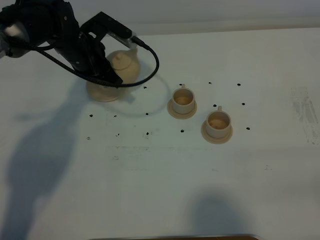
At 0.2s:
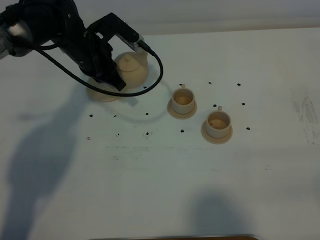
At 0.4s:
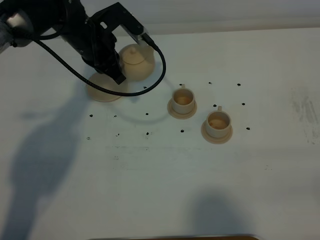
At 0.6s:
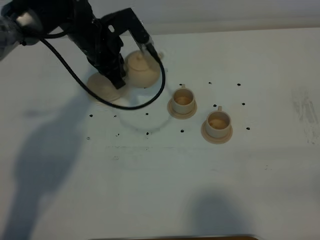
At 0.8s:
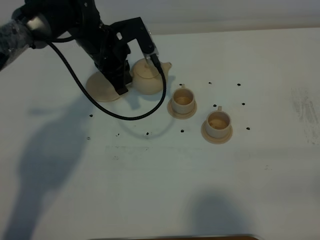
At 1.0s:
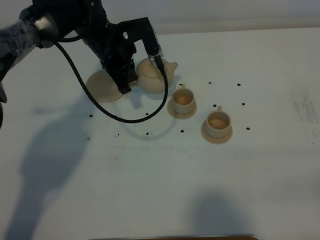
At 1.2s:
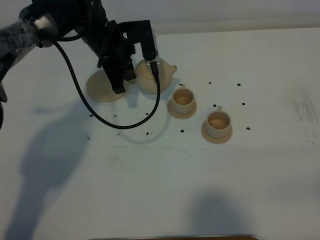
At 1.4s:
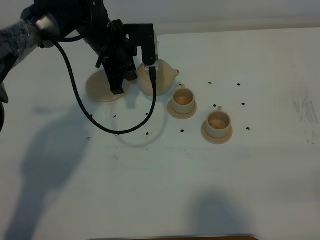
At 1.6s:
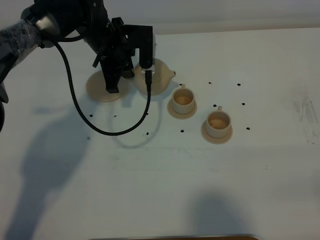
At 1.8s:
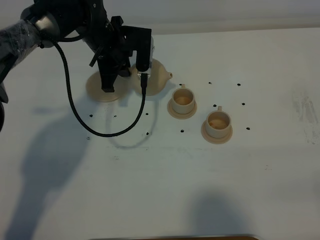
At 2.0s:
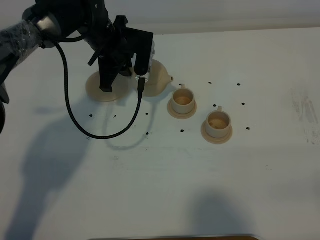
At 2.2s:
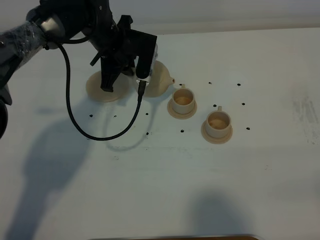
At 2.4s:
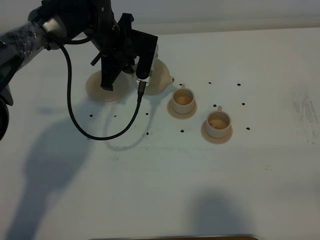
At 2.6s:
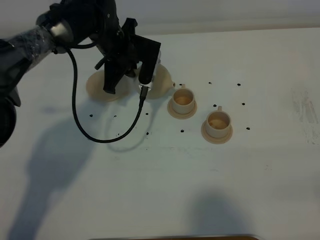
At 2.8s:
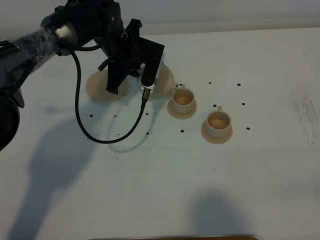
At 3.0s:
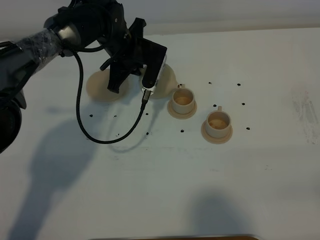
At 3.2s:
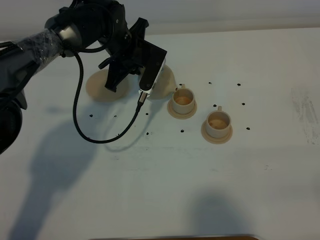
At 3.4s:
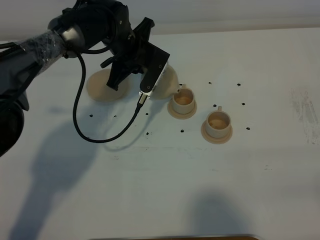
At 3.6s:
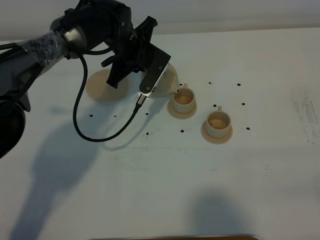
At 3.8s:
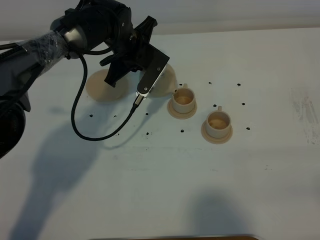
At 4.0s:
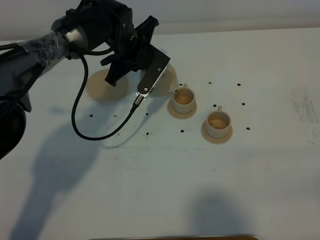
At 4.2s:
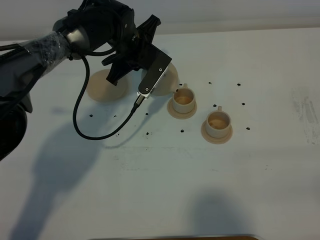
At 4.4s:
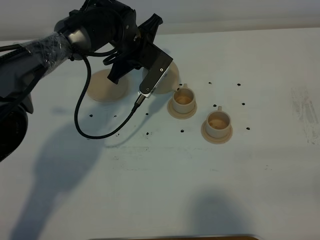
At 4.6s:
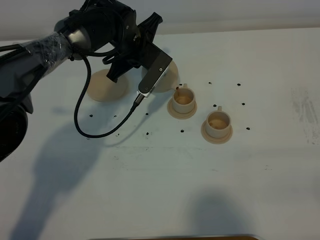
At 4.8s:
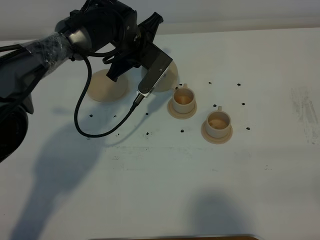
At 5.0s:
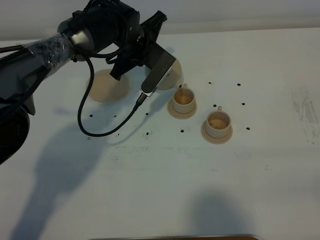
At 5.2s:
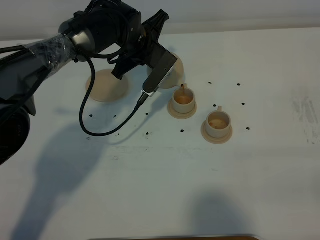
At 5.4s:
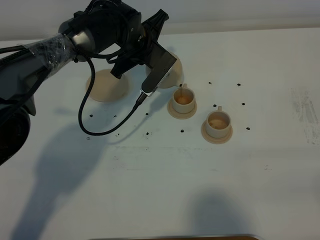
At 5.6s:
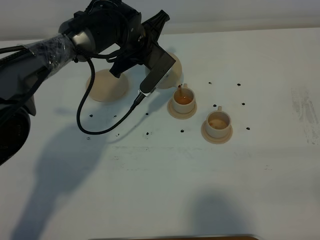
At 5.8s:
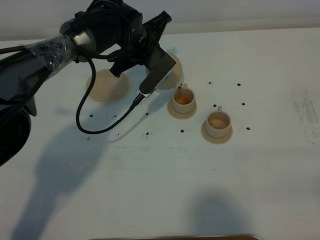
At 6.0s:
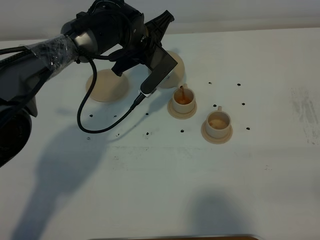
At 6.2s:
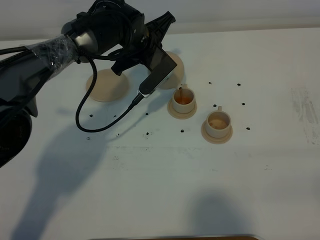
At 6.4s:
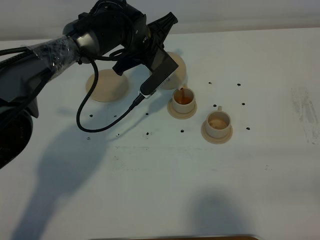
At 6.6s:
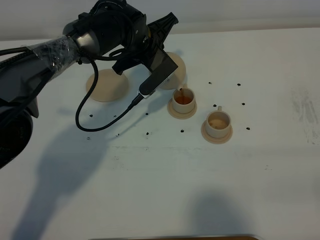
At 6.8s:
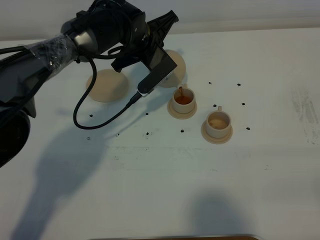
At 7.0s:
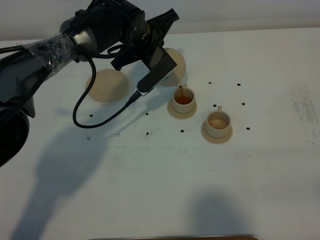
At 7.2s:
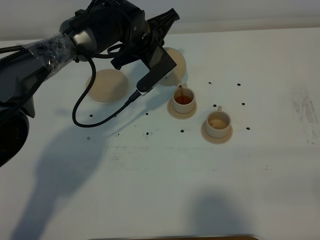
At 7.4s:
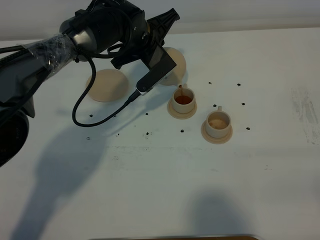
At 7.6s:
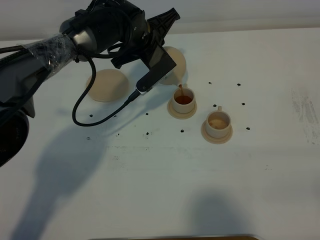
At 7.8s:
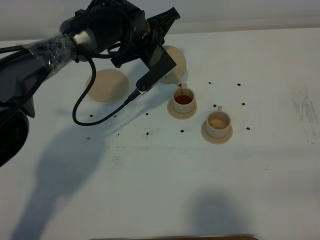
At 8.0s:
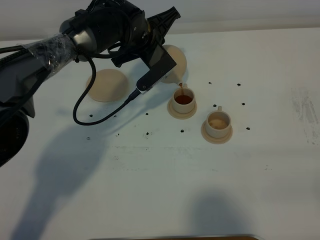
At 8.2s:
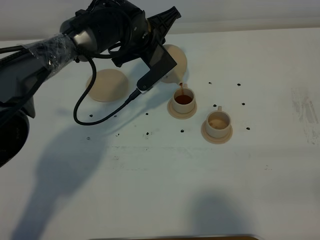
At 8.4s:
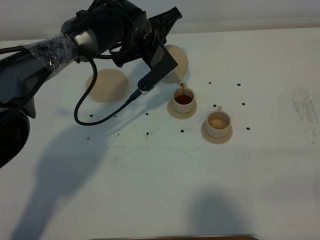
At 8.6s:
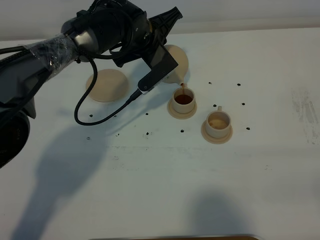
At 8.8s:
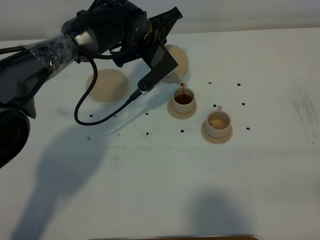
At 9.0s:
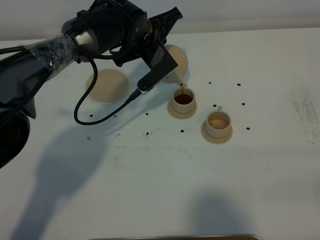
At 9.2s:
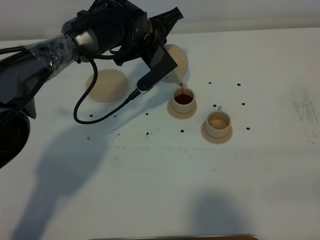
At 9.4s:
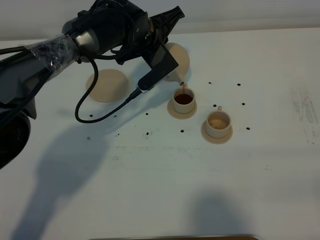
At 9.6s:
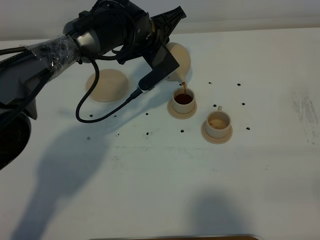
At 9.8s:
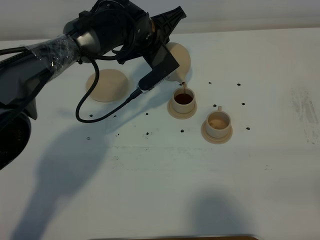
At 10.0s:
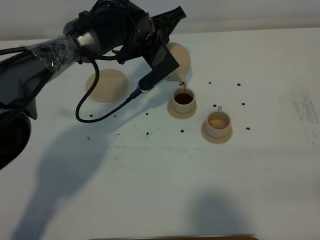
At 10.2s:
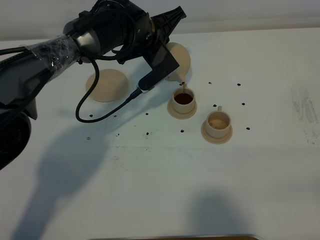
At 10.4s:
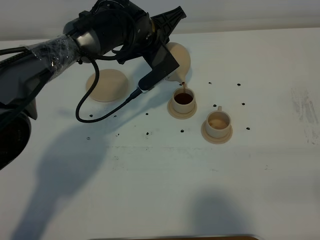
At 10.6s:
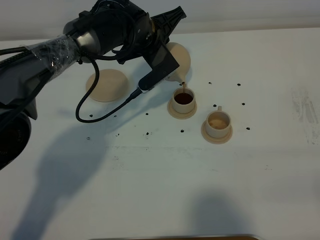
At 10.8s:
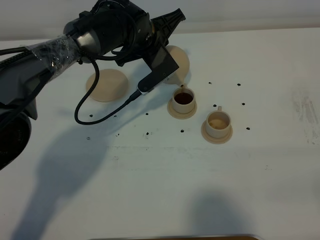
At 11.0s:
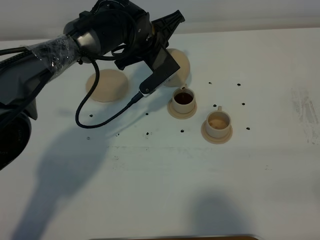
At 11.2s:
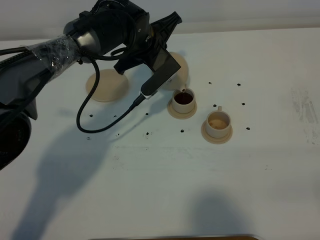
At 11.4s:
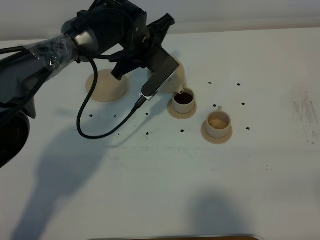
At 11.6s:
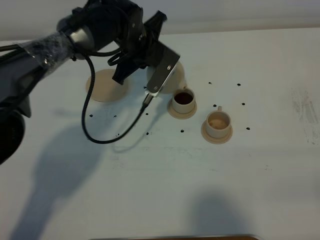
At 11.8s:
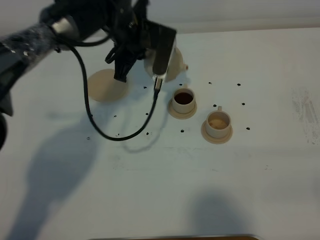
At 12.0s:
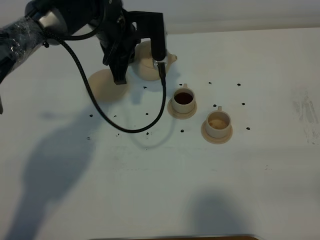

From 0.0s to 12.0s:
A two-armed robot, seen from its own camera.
Task of the whole recording: grasp the brown teapot and pour the tea into the two brown teacups one by one, put the brown teapot back in its original place.
From 0.0s to 1.6s: The left gripper changes place by some 5 cm.
From 3.0s to 4.4s: The grippers stay close to where they were, moving slightly.
From 4.4s to 7.6s: The grippers make only small movements.
From 7.6s to 10.4s: The two grippers keep their place.
From 10.4s to 12.0s: The left gripper heads to the left, covering approximately 5 cm.

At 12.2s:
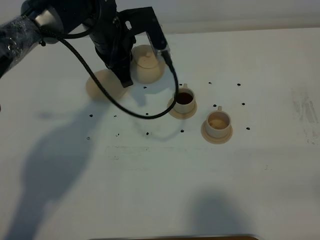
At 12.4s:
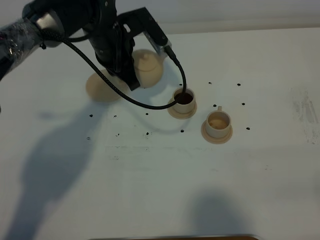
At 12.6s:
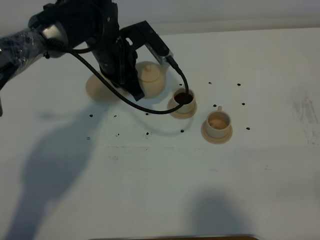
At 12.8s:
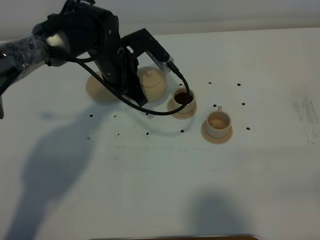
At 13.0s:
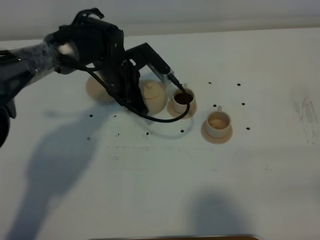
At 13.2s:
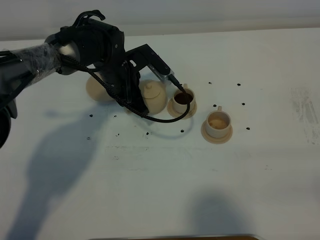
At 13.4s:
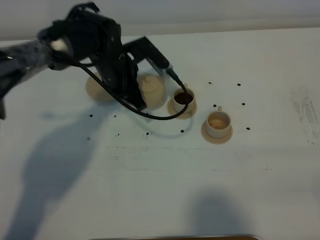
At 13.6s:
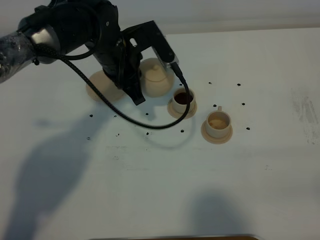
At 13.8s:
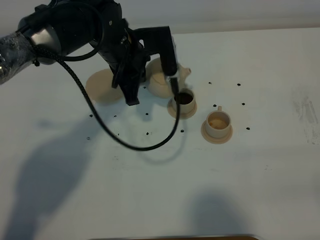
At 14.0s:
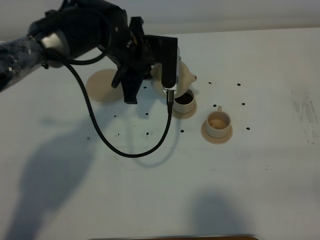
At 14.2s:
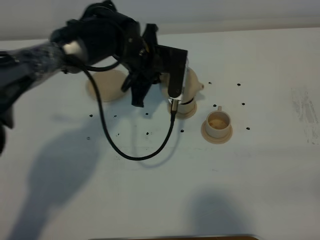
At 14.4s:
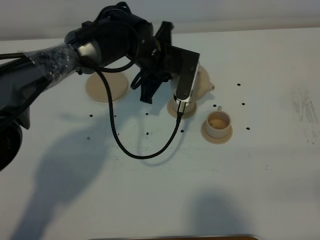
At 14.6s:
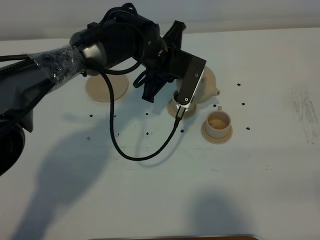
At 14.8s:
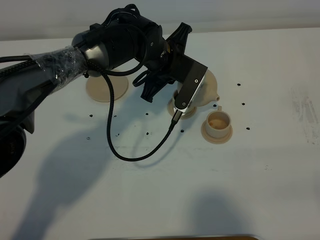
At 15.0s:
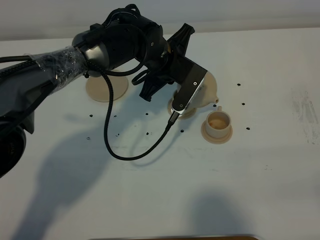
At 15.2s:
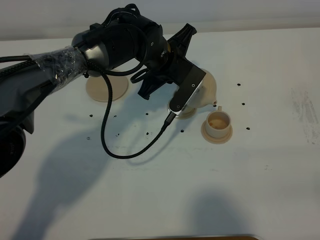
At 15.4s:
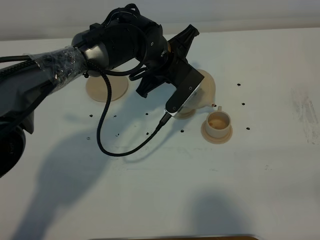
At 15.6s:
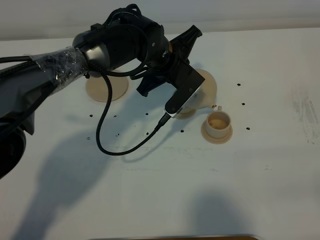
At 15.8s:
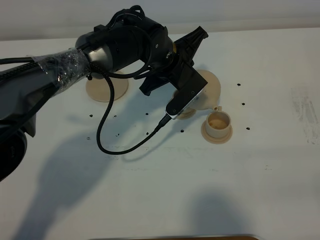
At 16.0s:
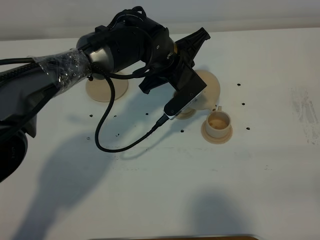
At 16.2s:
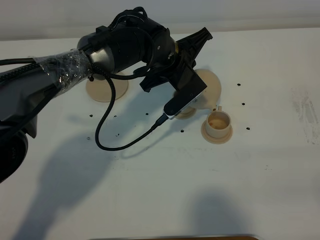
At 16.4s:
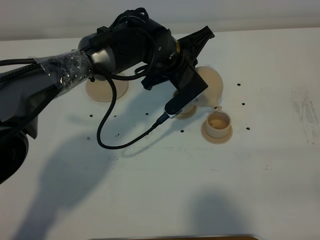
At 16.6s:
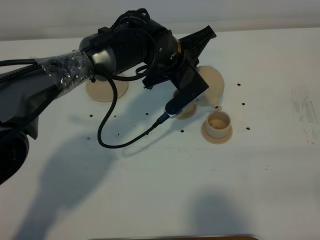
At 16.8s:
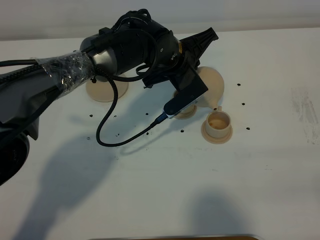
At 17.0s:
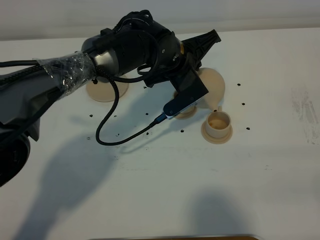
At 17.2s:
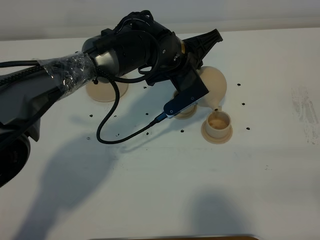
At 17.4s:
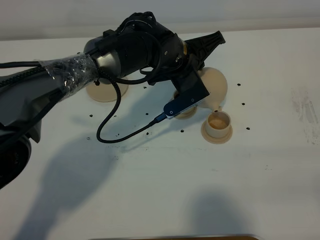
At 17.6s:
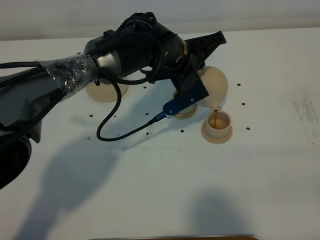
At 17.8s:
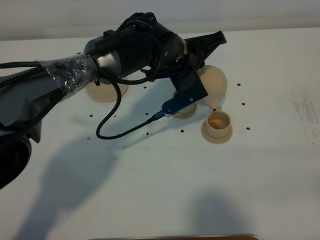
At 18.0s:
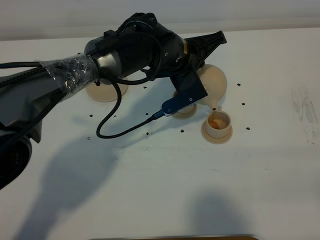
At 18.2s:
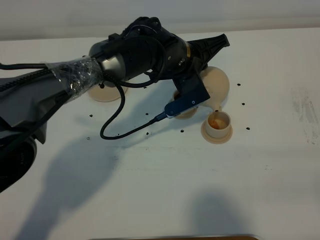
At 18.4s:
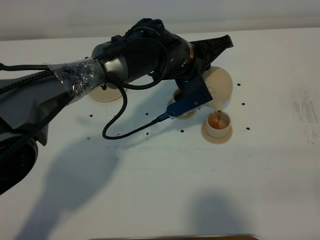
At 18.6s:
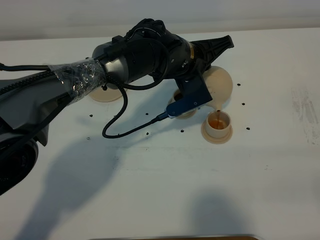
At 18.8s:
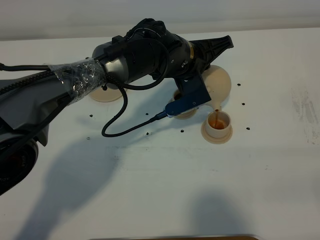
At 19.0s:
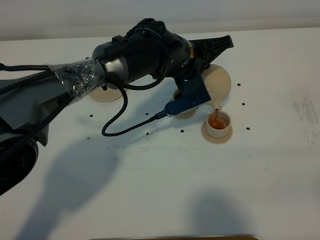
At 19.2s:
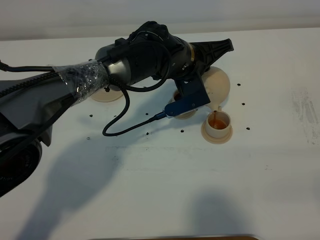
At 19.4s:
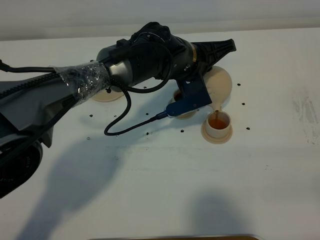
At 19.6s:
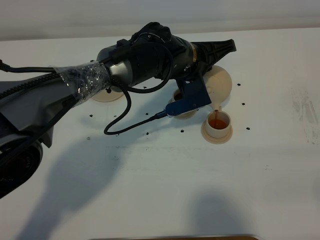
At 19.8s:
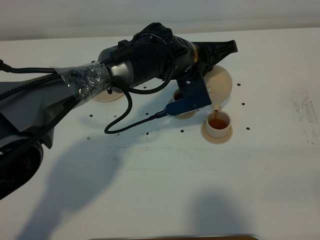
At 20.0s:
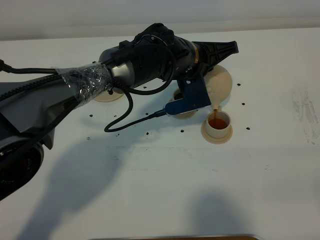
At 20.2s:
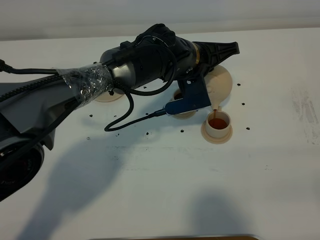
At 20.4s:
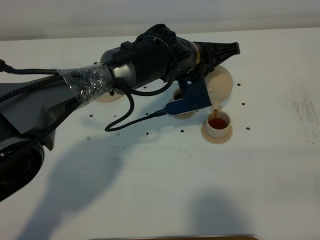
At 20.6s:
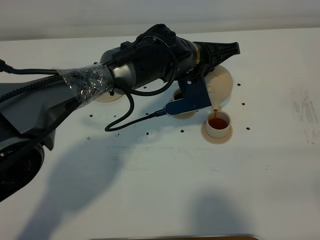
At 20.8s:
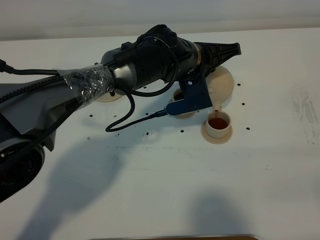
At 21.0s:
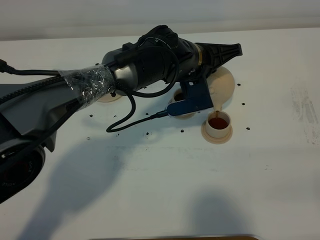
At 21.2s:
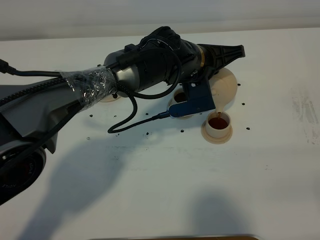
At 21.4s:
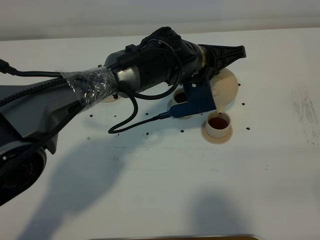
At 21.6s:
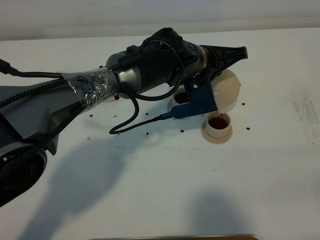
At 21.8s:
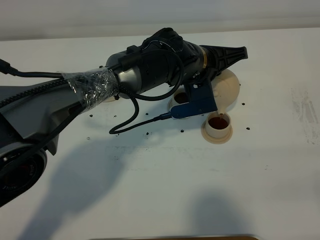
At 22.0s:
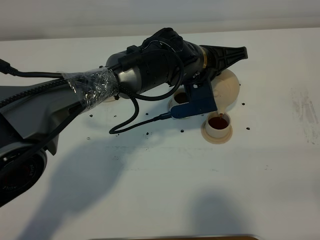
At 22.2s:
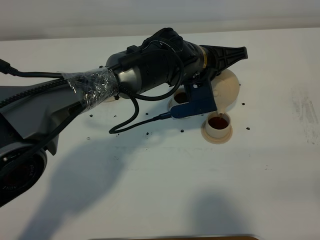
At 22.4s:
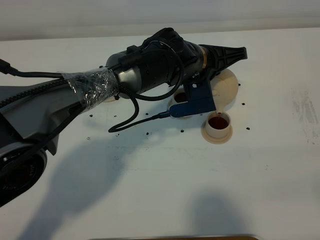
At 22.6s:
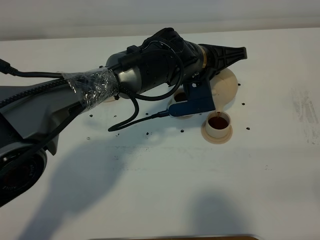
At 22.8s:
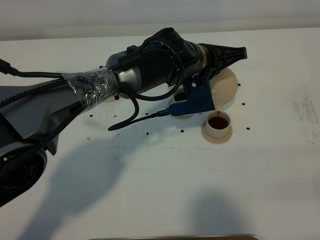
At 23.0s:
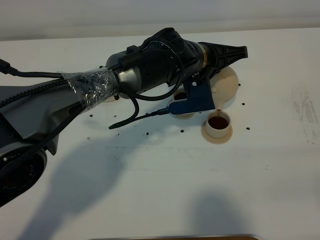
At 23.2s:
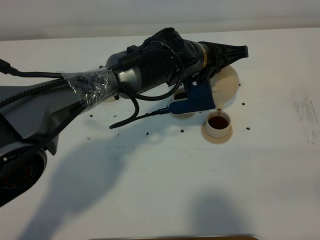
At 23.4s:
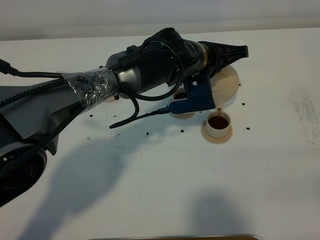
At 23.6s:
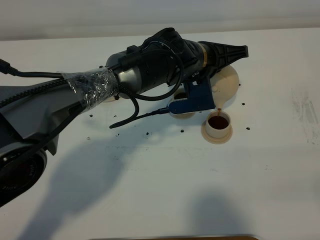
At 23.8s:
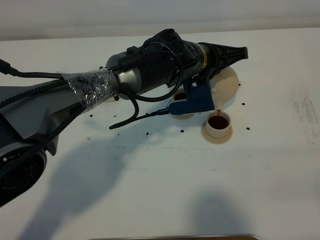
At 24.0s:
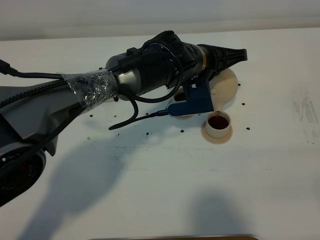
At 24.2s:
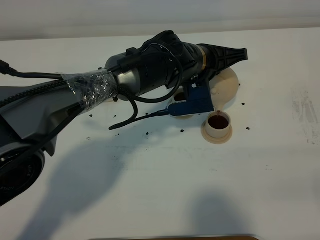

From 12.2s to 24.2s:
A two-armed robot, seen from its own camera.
Task of the whole recording: grasp the brown teapot and pour the tea into the two brown teacups one by one, put the brown teapot back in its original place.
From 12.2s to 13.8s: The left gripper goes downward and returns, some 10 cm each way.
From 13.8s to 15.2s: The left gripper heads to the right, covering some 5 cm.
From 15.2s to 16.6s: The grippers move only a little.
From 16.6s to 18.2s: The grippers stay close to where they were, moving slightly.
From 18.2s to 19.8s: The grippers stay close to where they were, moving slightly.
From 19.8s to 21.2s: The two grippers keep their place.
From 21.2s to 22.6s: Both grippers stay put.
From 22.6s to 24.2s: Both grippers stay put.
